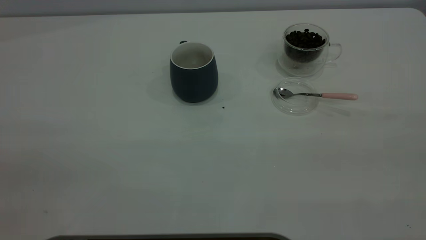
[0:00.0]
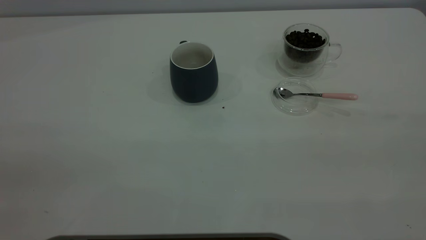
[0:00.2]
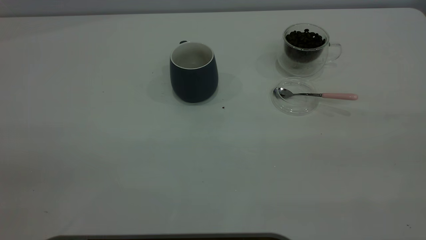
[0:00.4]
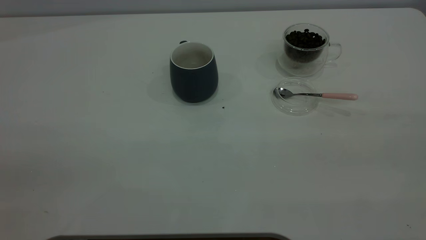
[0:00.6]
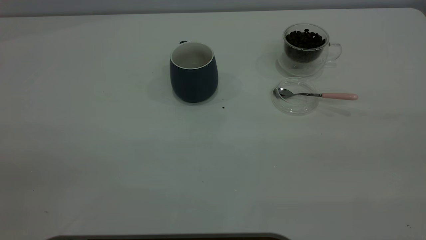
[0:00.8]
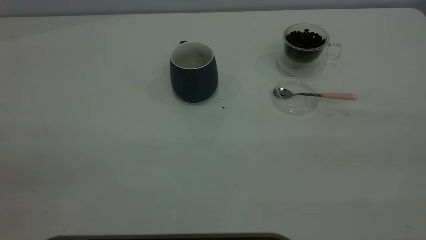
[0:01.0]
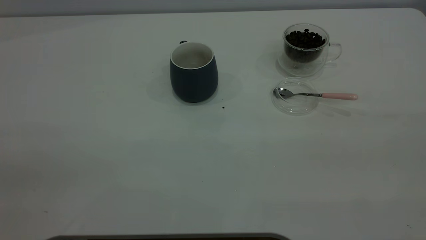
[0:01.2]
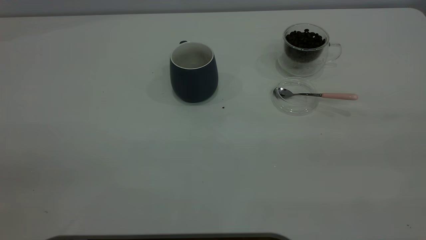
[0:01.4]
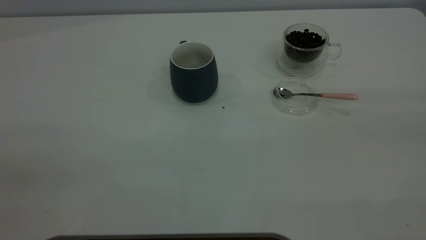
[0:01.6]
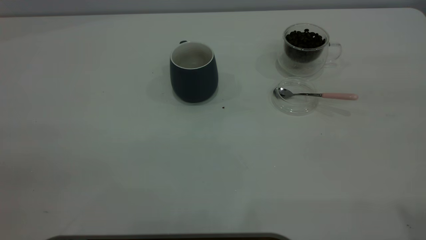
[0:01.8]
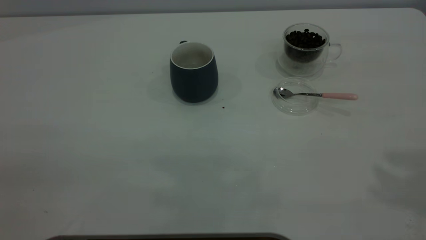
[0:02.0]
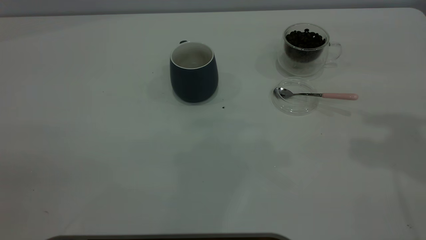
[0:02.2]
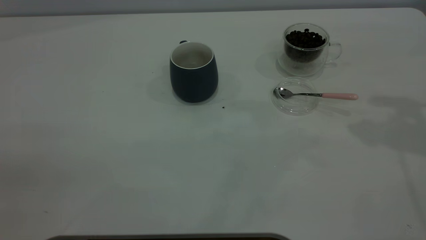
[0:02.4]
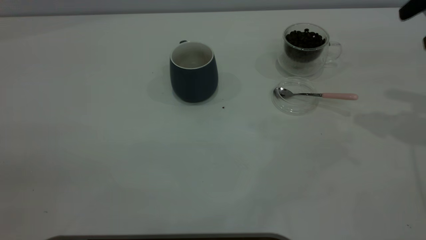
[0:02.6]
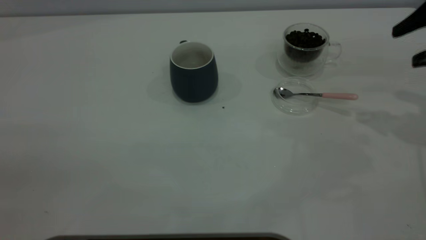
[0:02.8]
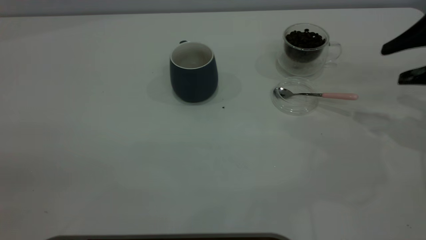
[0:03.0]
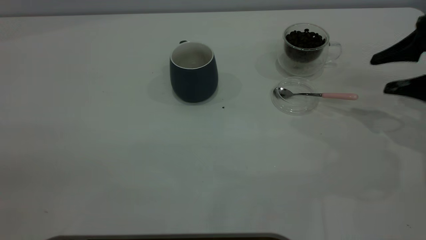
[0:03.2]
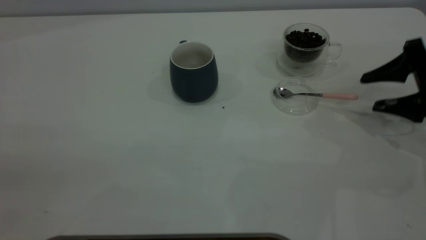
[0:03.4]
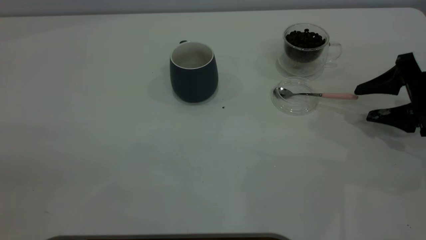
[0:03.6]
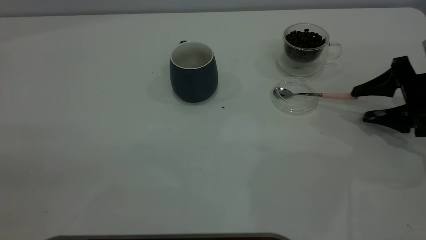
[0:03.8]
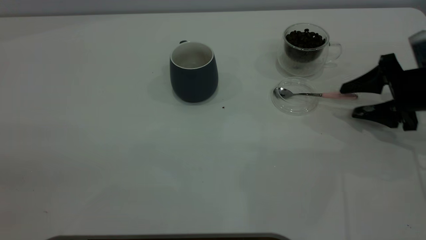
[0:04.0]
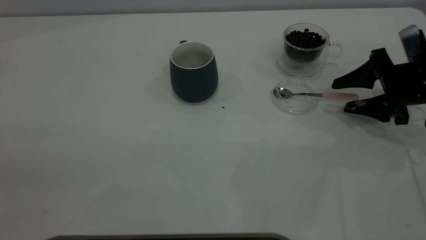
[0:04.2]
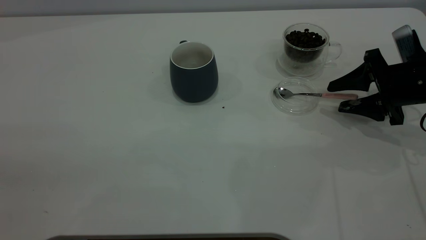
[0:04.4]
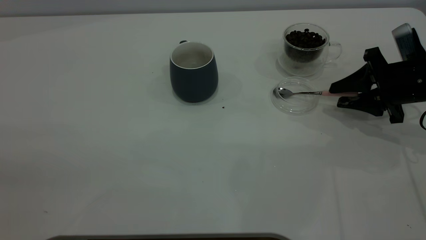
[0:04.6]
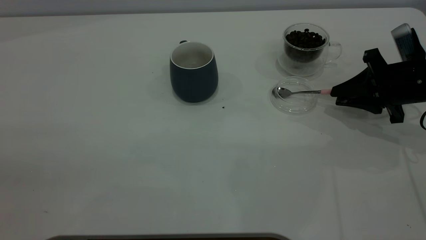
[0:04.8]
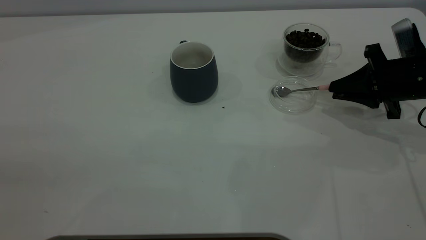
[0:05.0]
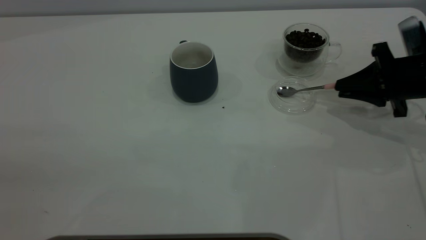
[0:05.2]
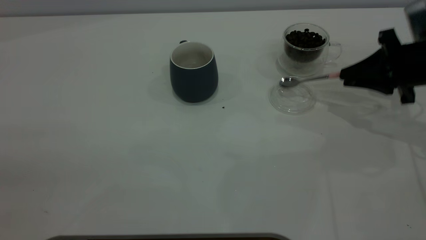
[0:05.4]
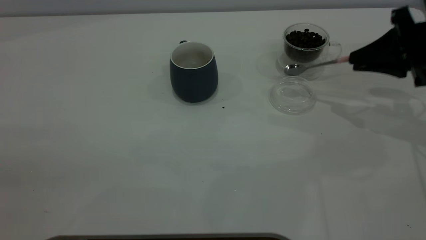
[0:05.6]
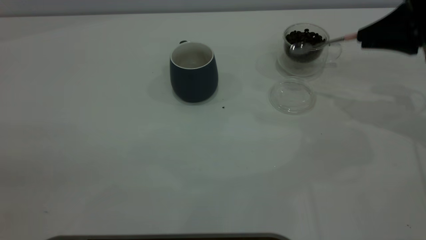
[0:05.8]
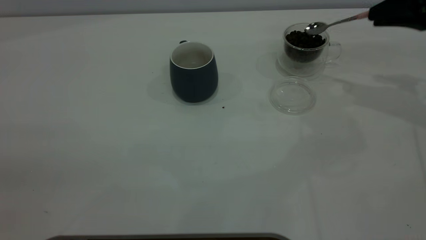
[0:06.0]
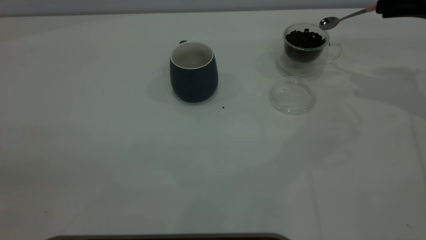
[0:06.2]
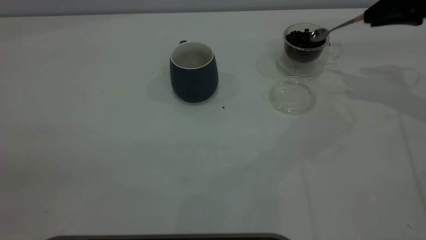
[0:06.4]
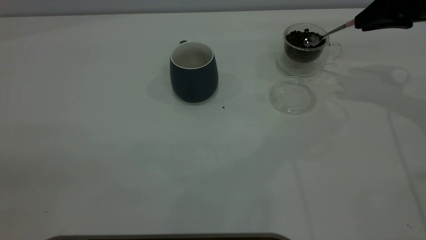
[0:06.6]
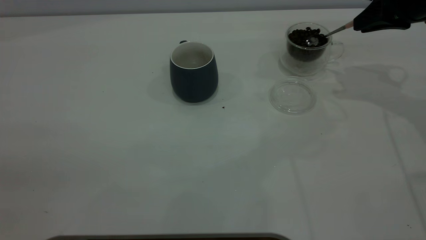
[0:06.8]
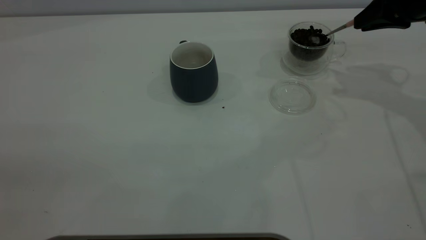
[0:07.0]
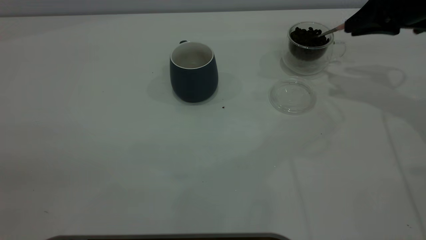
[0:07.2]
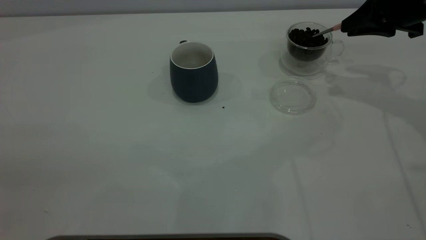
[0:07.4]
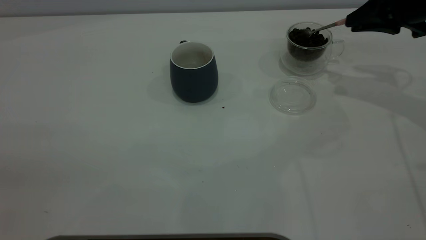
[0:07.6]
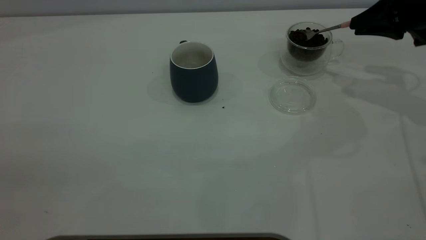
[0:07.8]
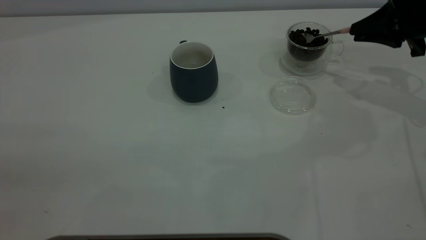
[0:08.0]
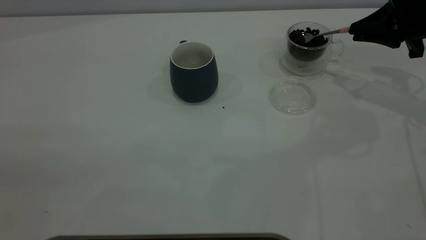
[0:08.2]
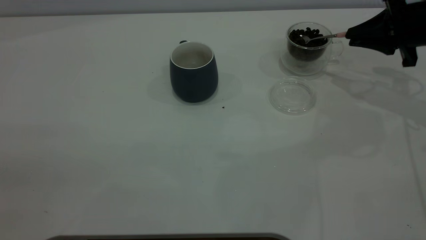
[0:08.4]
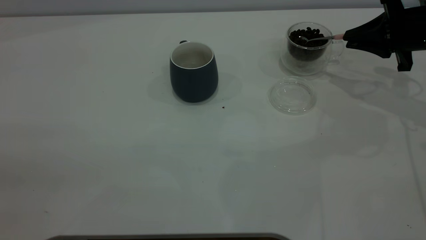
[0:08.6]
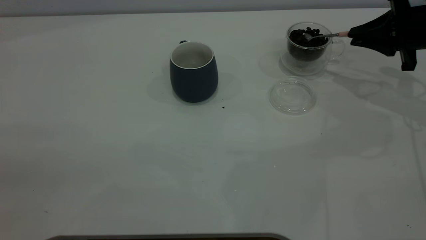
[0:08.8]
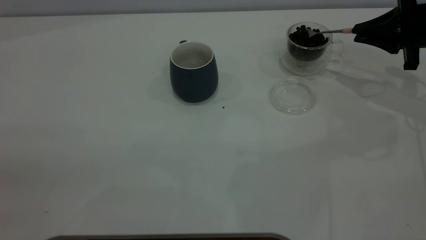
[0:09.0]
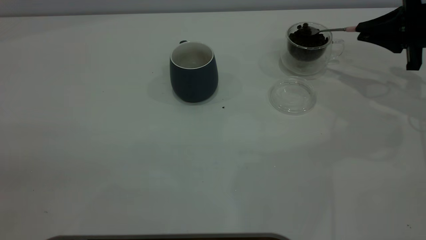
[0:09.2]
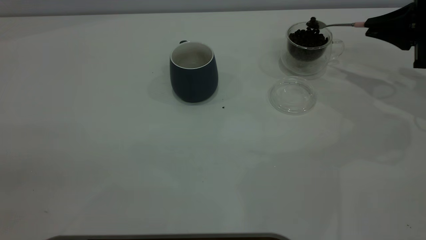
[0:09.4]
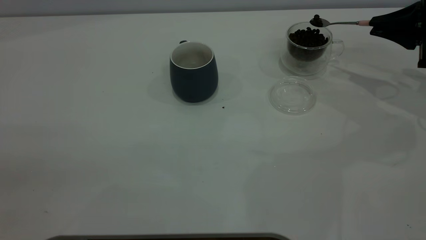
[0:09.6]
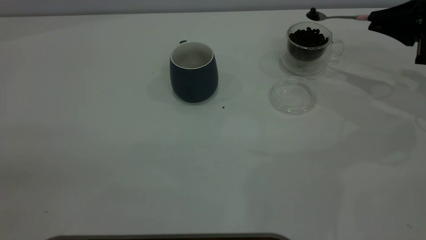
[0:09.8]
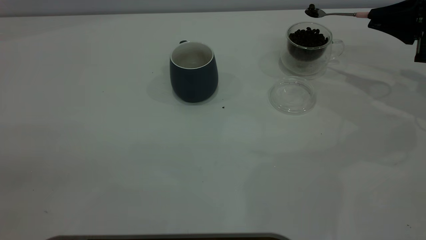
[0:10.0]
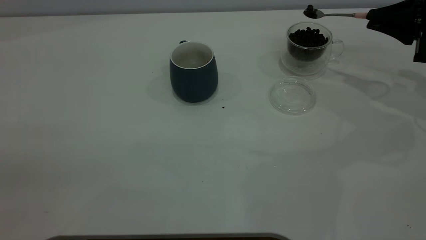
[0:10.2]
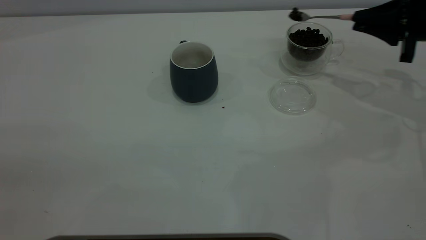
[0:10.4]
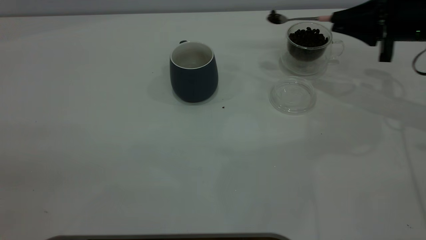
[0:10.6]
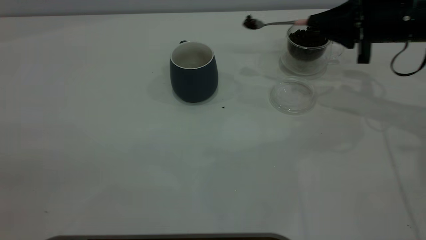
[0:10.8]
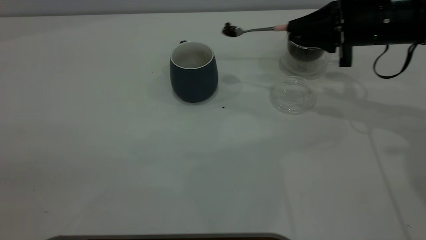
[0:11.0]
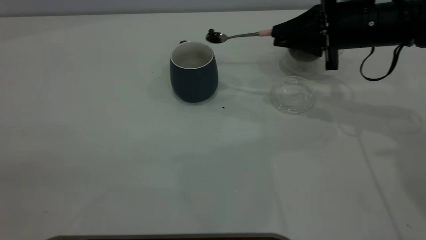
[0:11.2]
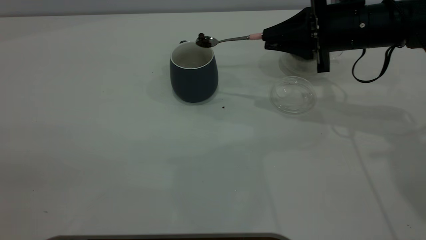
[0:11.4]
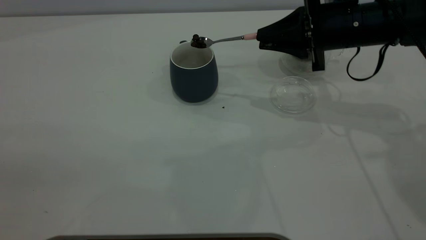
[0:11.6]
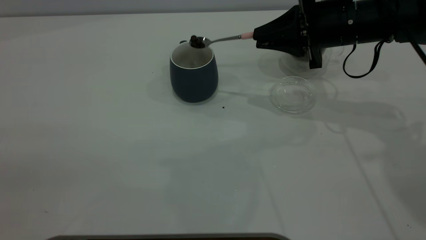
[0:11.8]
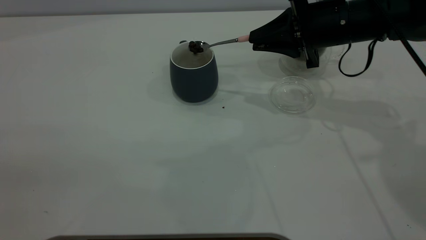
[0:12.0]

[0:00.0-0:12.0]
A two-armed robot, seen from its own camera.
Task of the whole recording: the left gripper place the grey cup in the center of the table, the right gripper take the pink spoon from the cup lid and scoop out the coffee beans from the coffee cup and put them into the grey cup, the right gripper put the spoon back into the cup lid.
Step, 0:00.0 to 0:05.4: Pick up the spoon.
0:01.6 to 0:03.0: The right gripper shifts approximately 35 cm forward and downward.
0:03.0 to 0:04.4: The right gripper heads downward, covering approximately 10 cm.
0:04.4 to 0:06.0: The right gripper shifts roughly 15 cm upward, and closes its fingers.
0:06.0 to 0:07.6: There are only small adjustments of the grippers.
0:07.6 to 0:09.0: The right gripper moves about 5 cm.
0:09.0 to 0:10.4: There are only small adjustments of the grippers.
0:10.4 to 0:12.0: The right gripper travels to the left by roughly 15 cm.

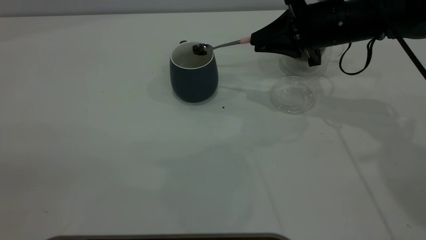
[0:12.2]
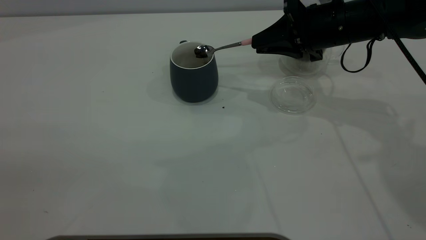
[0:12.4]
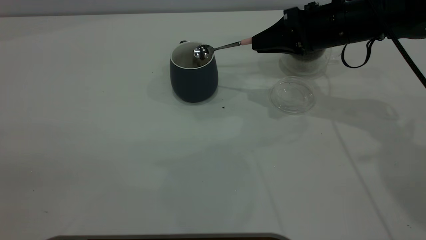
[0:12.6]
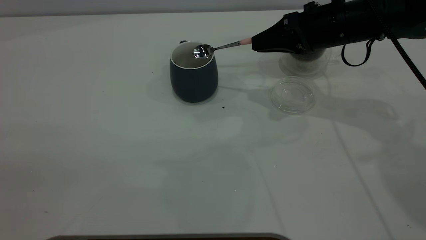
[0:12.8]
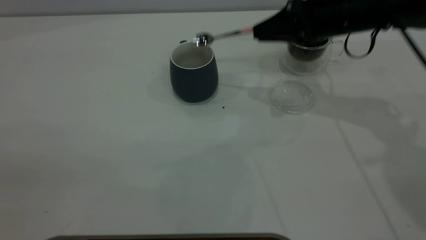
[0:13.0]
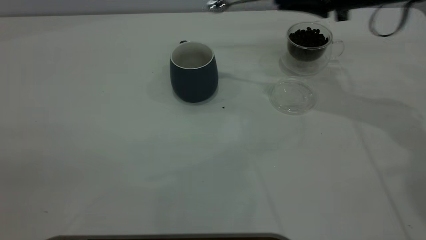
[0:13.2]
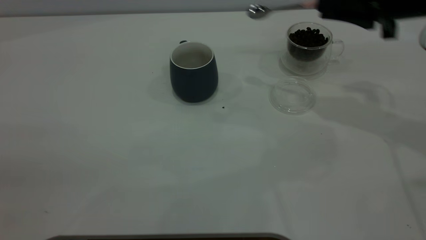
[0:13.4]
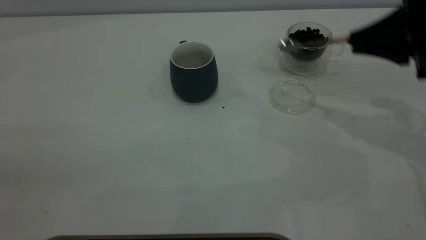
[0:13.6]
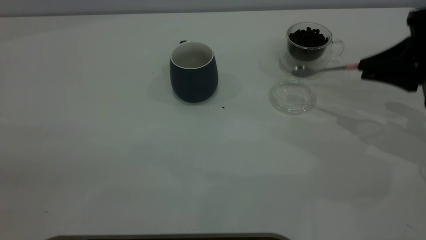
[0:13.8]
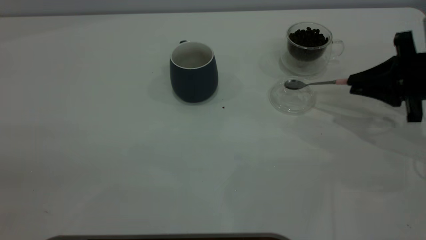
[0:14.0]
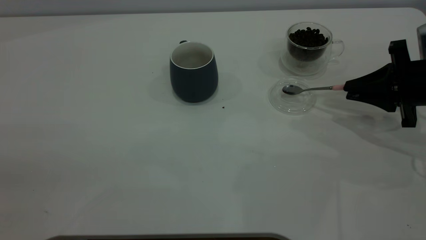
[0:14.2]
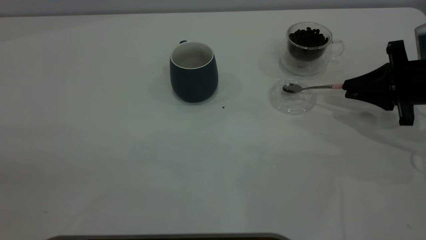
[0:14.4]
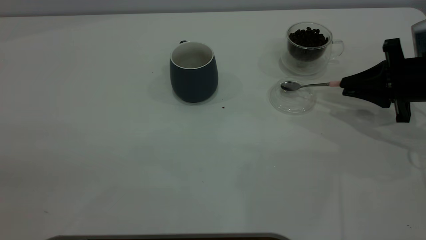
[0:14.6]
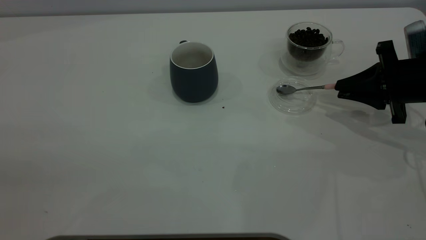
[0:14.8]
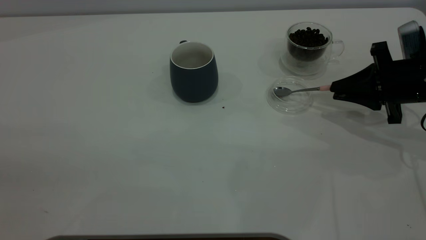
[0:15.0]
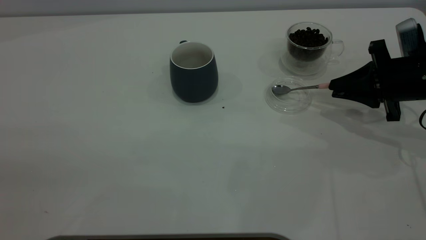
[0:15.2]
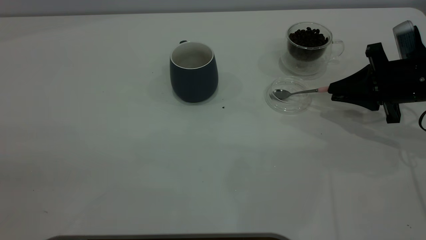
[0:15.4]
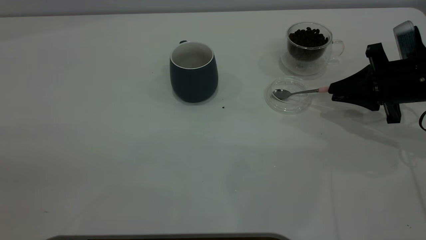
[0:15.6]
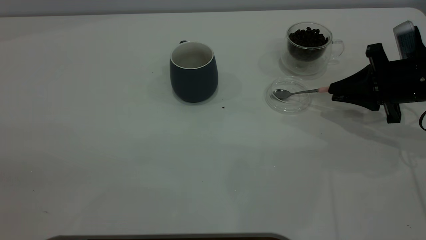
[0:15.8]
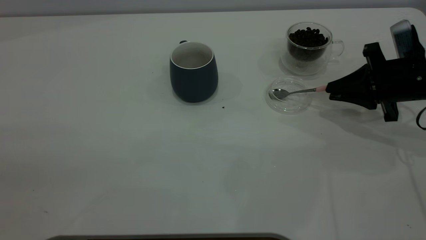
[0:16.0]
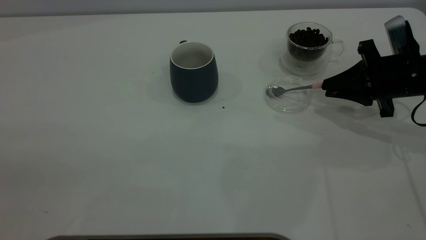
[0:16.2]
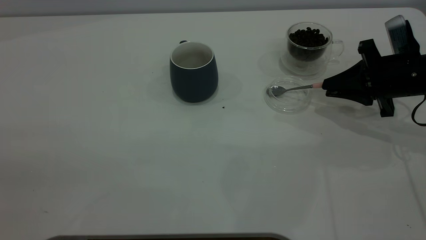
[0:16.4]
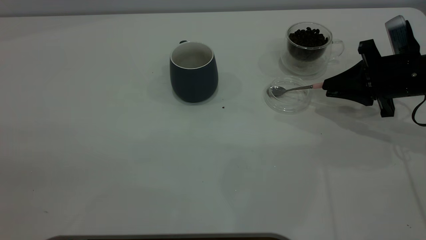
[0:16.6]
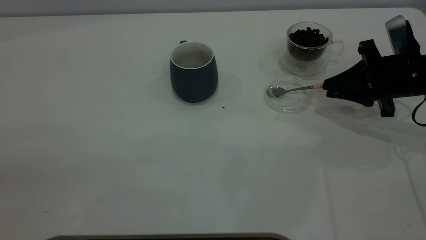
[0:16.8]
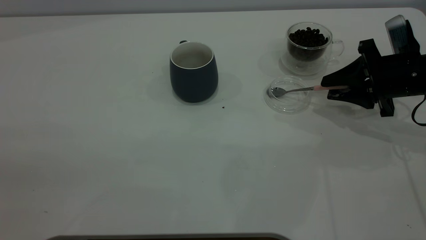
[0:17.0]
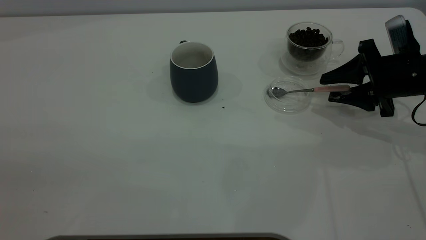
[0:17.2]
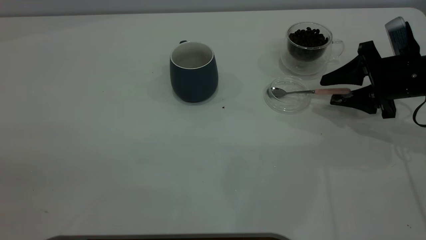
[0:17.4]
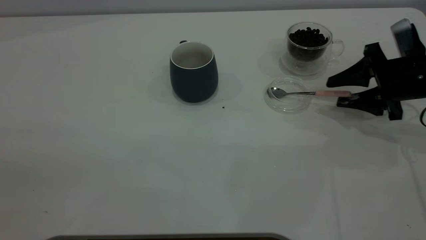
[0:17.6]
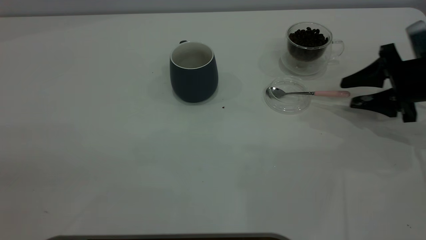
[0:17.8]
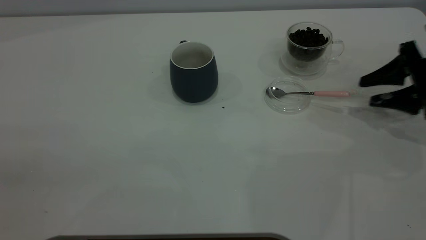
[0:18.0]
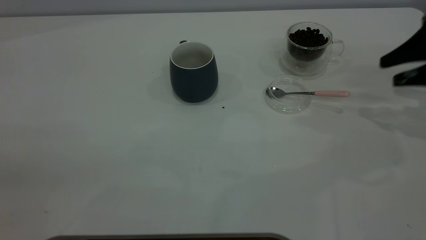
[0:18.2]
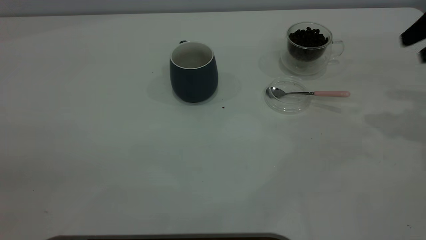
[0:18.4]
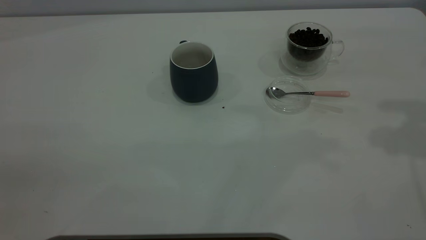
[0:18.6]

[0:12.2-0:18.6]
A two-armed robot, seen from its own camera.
Task of the whole recording: the left gripper place the grey cup in the center of the table, the right gripper take the pink spoon from the cup lid and scoop out the coffee beans from the coffee cup and put them into the grey cup, the right gripper put the spoon back into the cup lid.
Step, 0:13.2 to 0:18.0: Place the spoon back in its original place.
0:12.2 to 0:13.8: The right gripper shifts roughly 15 cm to the right and backward.
0:13.8 to 0:15.4: The right gripper goes approximately 5 cm downward.
0:15.4 to 0:17.0: The right gripper opens.
0:17.0 to 0:18.6: The right gripper heads upward, covering about 25 cm.
